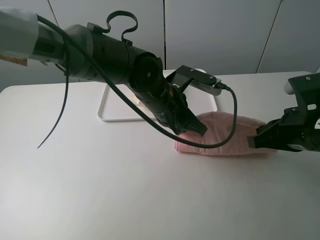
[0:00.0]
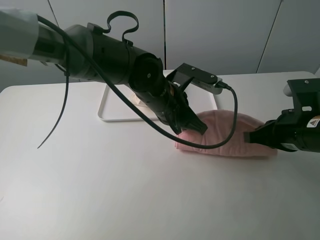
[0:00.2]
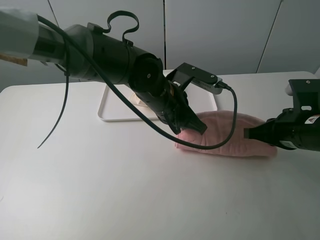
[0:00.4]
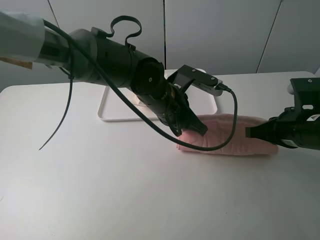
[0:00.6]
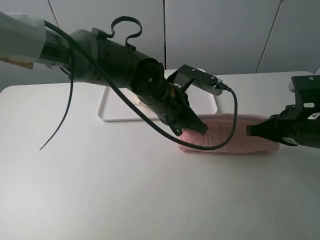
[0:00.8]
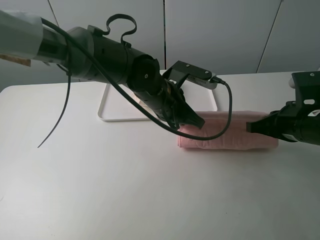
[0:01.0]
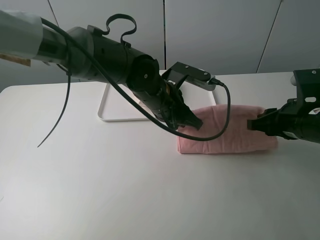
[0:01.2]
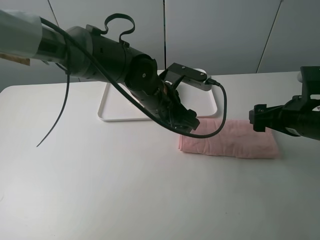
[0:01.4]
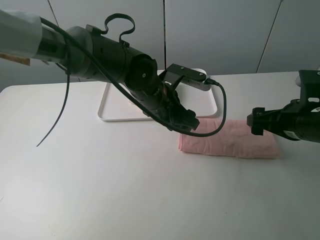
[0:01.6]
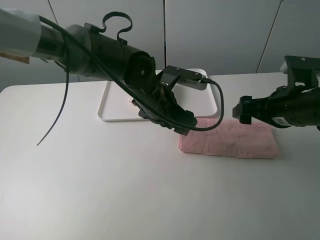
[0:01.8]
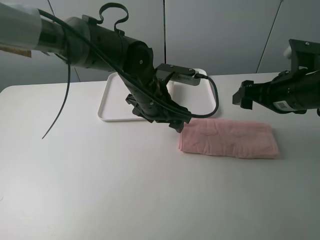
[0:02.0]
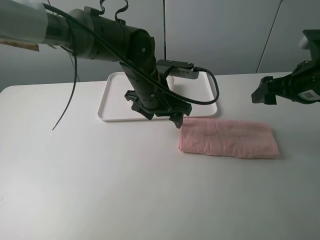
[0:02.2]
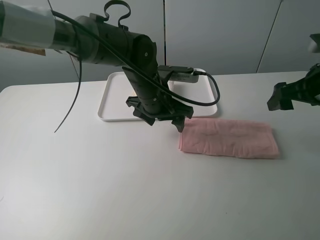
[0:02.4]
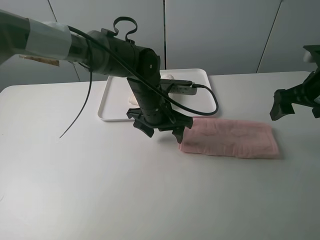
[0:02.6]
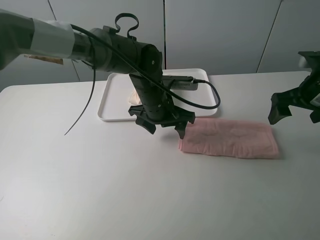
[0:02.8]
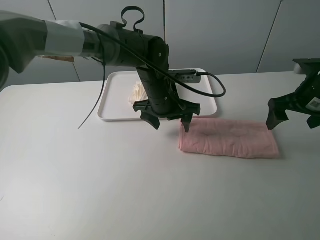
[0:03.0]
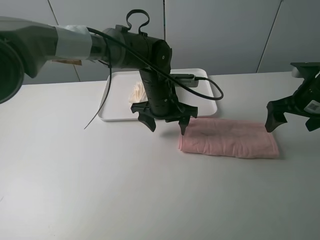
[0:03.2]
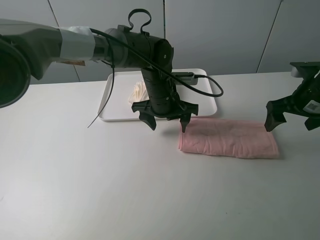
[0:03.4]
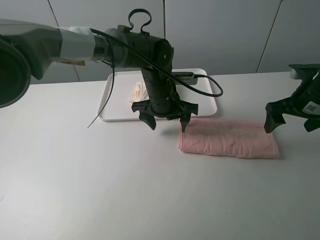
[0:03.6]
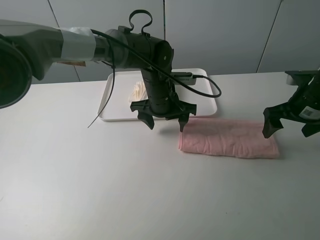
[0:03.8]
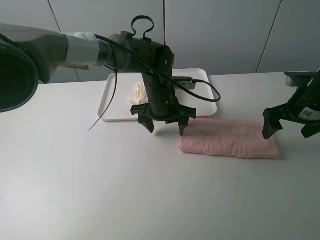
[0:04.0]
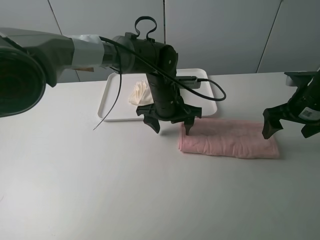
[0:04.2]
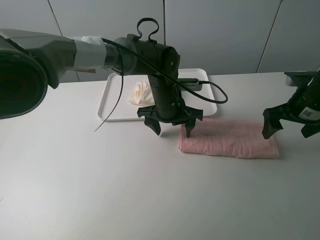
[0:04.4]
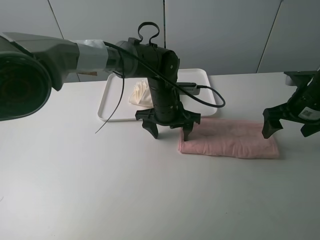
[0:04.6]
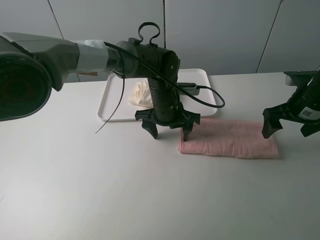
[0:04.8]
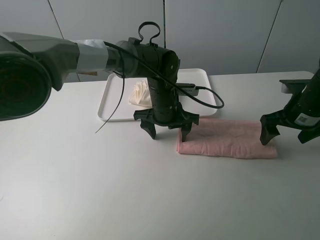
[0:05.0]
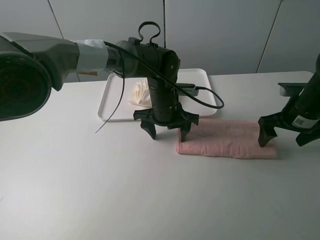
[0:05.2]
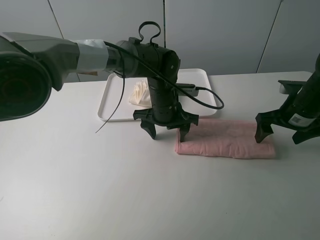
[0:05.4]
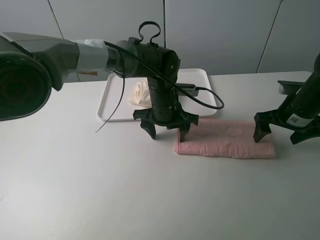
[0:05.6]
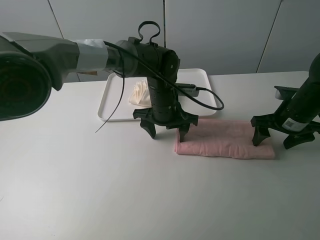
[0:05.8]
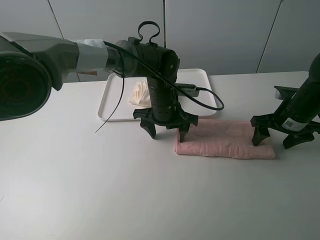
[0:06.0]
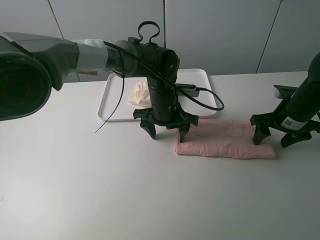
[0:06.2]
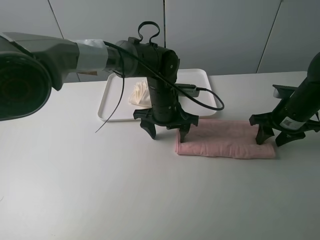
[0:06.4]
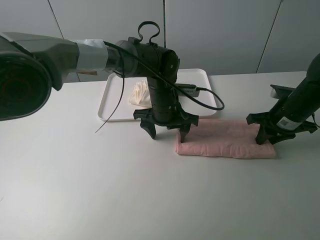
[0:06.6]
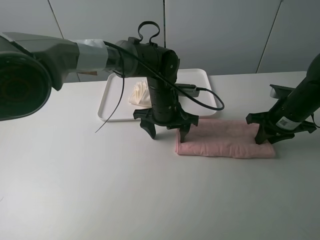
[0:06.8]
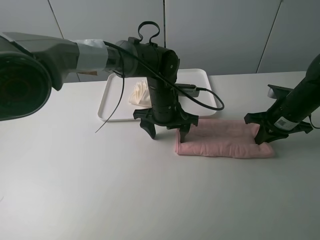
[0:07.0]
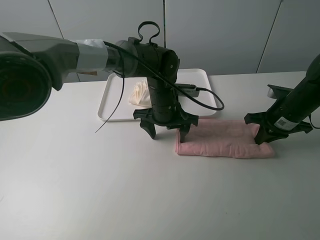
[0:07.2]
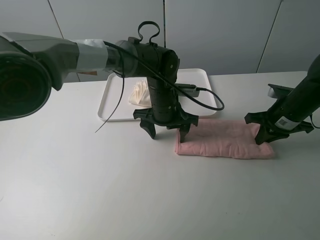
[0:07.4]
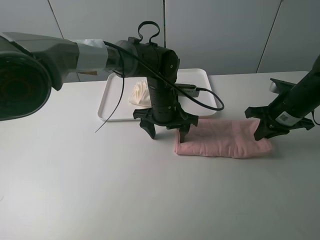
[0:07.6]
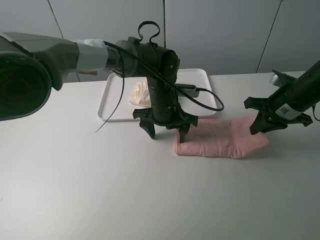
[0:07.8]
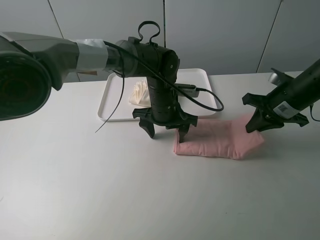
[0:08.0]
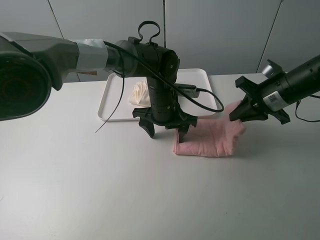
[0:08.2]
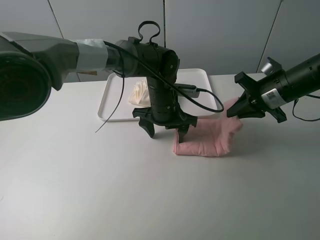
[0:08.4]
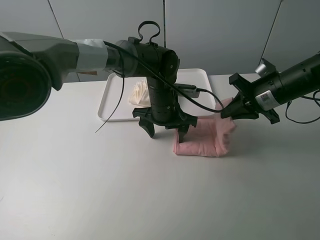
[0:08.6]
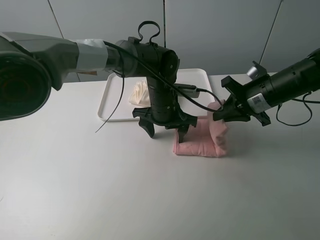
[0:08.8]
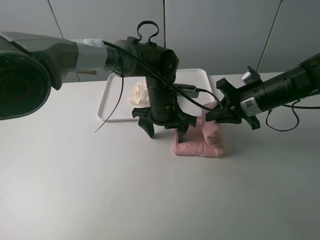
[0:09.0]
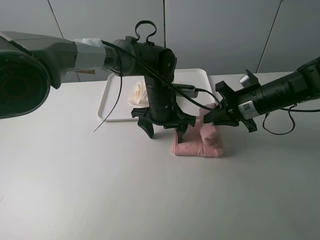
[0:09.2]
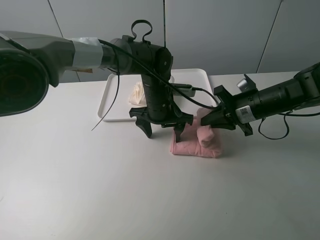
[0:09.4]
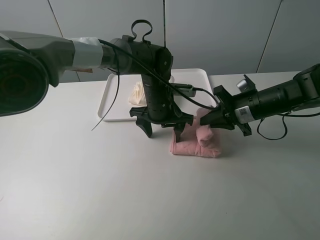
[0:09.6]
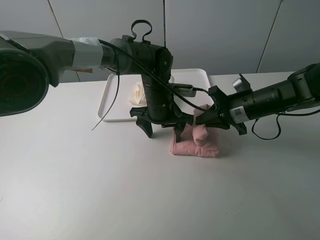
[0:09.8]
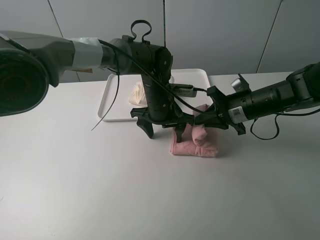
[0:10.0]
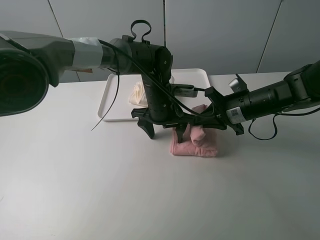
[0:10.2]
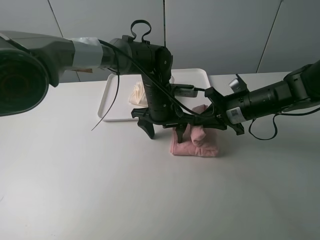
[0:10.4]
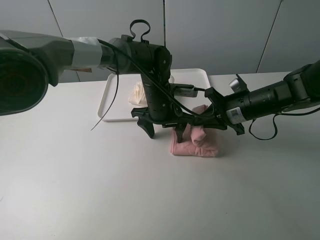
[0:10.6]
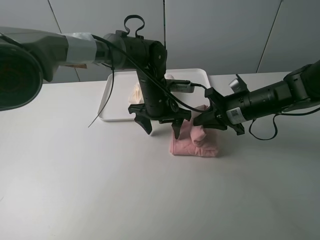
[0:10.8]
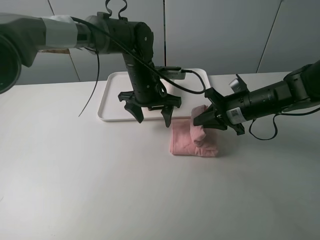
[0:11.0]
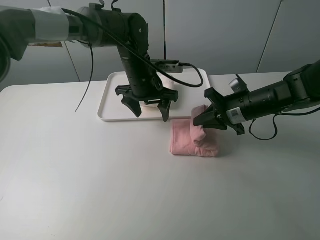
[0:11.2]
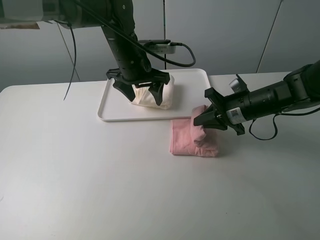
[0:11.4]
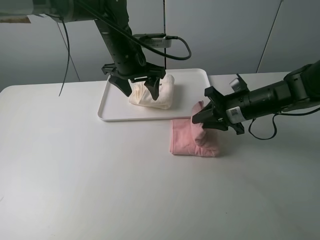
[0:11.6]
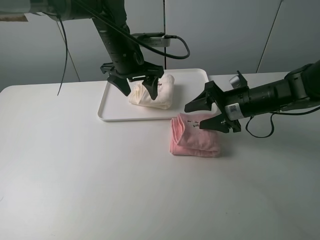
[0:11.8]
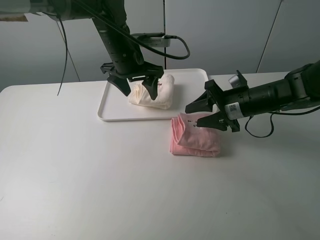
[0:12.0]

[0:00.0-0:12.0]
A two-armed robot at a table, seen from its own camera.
Task of the whole recording: fold one of the towels by two grippers and place it on the tray,then fold another towel by two grippers and place it on the folded towel.
Step, 0:01.8 to 0:04.4: Press the pink towel with the left gripper.
Step, 0:04.6 to 0:06.8: Grasp the pink towel with the right gripper.
Step, 0:07.0 to 0:12.0: Fold the pink towel from right to left with right gripper.
0:00.0 to 0:01.6: The left gripper opens up. The right gripper opens its fingers.
0:01.6 to 0:03.0: The right gripper heads forward and to the right, covering roughly 10 cm.
0:03.0 to 0:04.4: The grippers stay close to where they were, moving slightly.
0:04.4 to 0:06.0: There are only small adjustments of the grippers.
0:06.0 to 0:07.6: The right gripper closes its fingers.
0:07.6 to 0:09.0: The right gripper shifts approximately 5 cm to the left.
0:09.0 to 0:10.4: The grippers make only small movements.
0:10.4 to 0:12.0: The left gripper is displaced upward and to the left by approximately 15 cm; the right gripper opens.

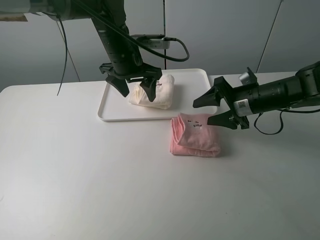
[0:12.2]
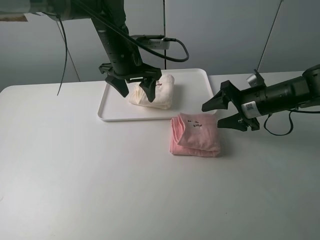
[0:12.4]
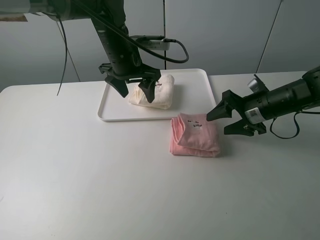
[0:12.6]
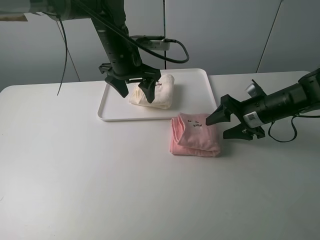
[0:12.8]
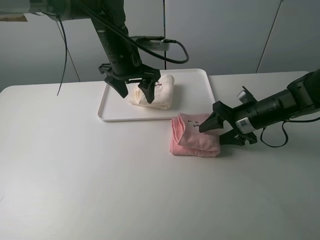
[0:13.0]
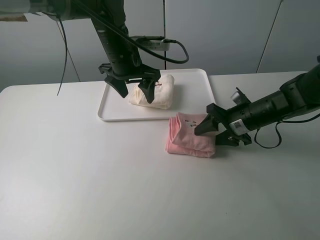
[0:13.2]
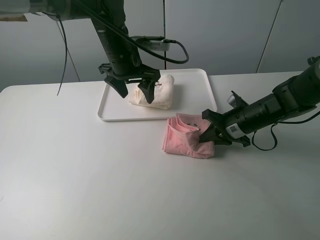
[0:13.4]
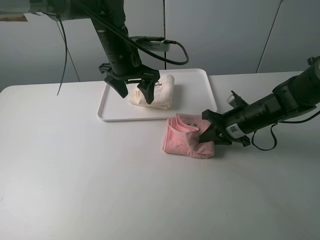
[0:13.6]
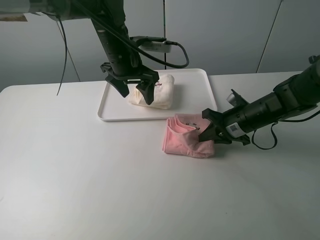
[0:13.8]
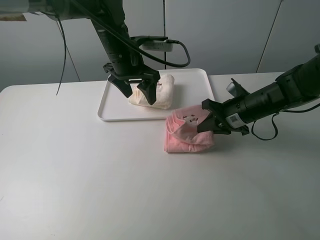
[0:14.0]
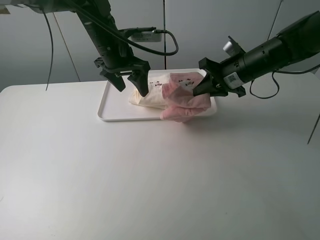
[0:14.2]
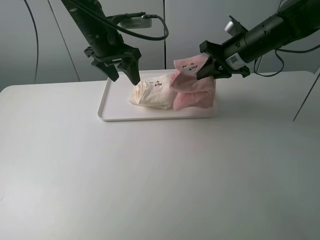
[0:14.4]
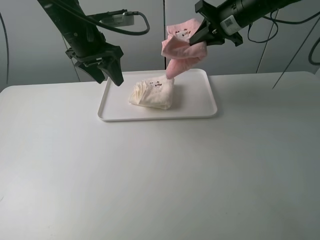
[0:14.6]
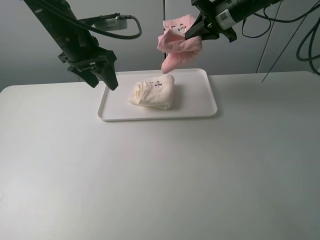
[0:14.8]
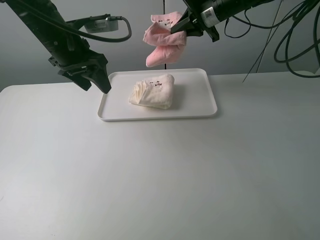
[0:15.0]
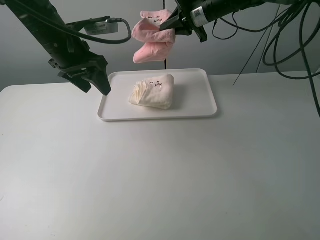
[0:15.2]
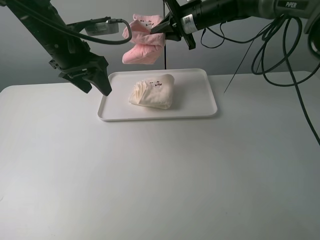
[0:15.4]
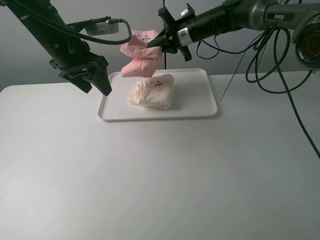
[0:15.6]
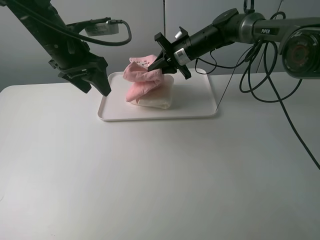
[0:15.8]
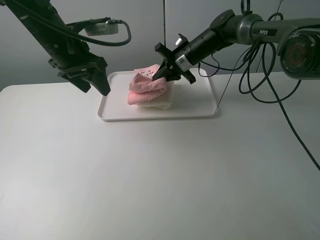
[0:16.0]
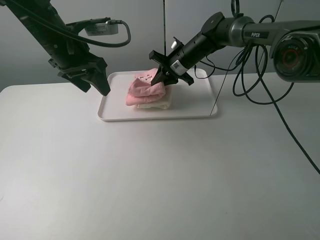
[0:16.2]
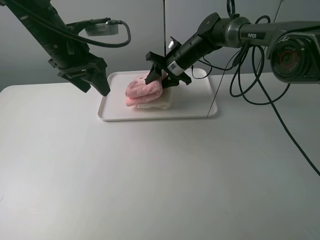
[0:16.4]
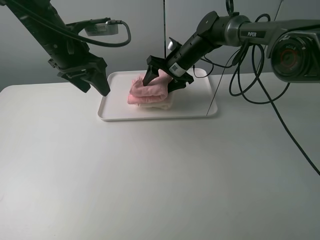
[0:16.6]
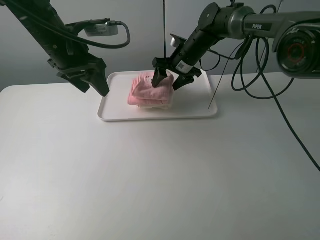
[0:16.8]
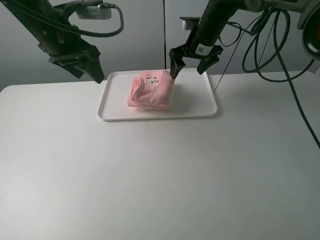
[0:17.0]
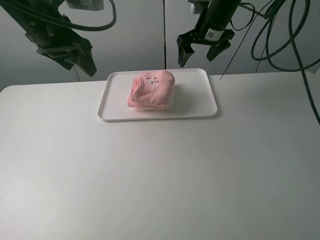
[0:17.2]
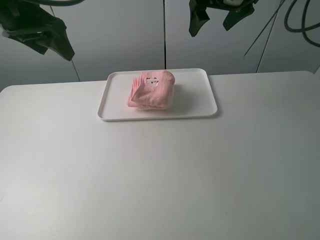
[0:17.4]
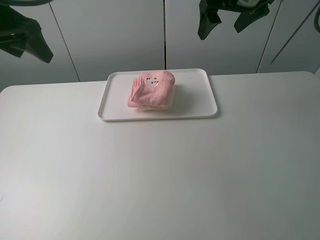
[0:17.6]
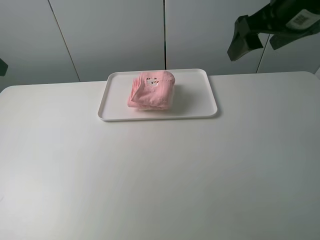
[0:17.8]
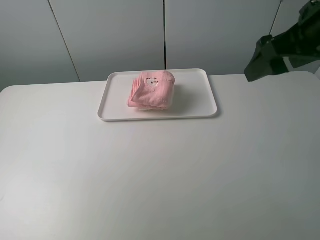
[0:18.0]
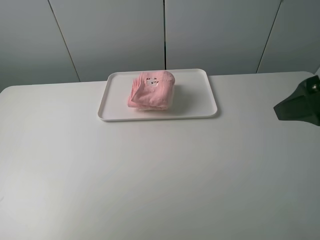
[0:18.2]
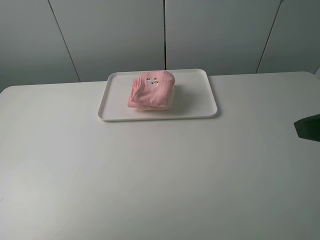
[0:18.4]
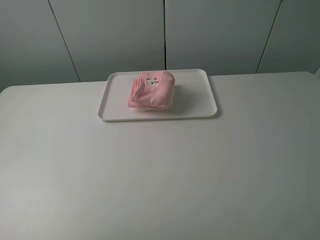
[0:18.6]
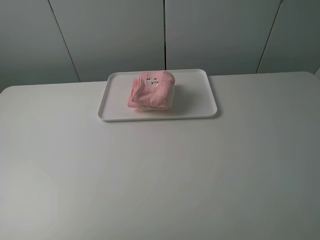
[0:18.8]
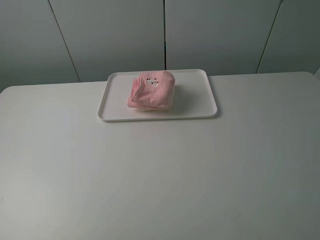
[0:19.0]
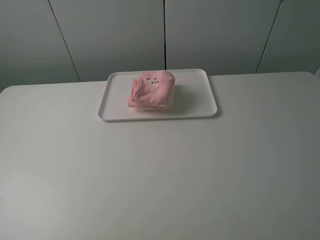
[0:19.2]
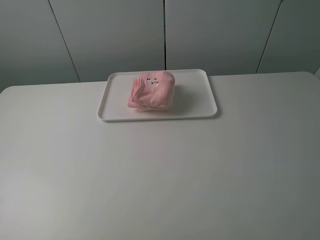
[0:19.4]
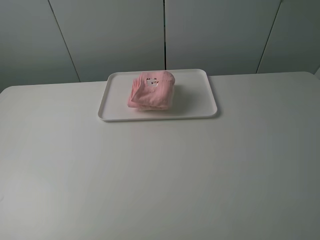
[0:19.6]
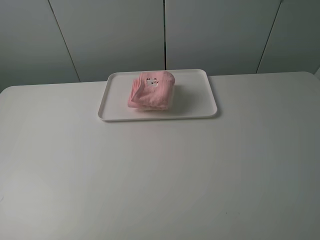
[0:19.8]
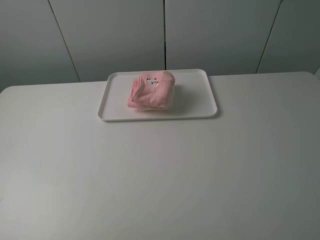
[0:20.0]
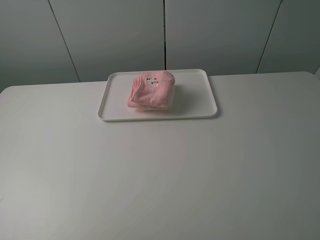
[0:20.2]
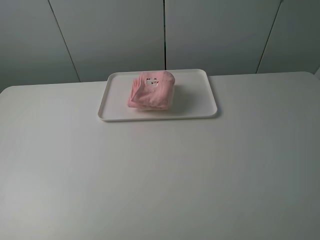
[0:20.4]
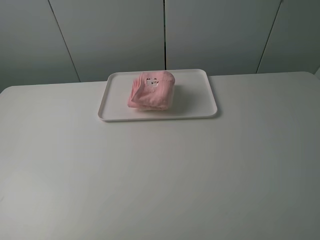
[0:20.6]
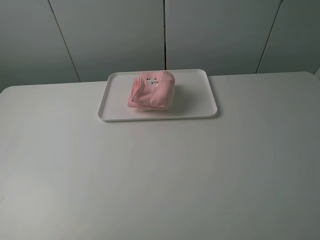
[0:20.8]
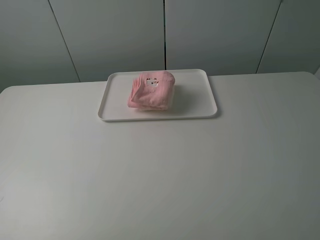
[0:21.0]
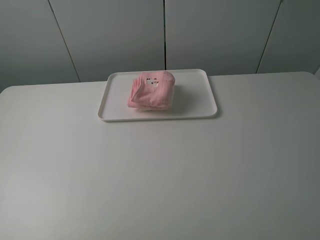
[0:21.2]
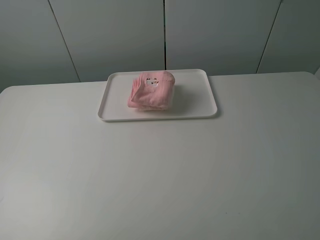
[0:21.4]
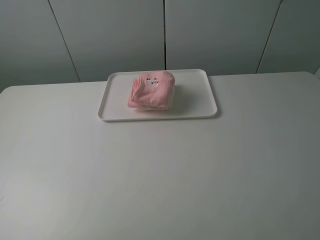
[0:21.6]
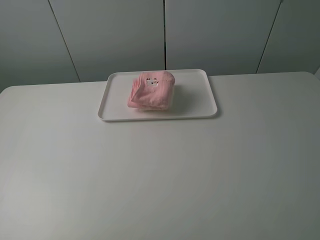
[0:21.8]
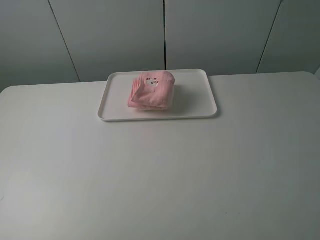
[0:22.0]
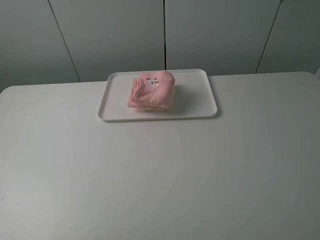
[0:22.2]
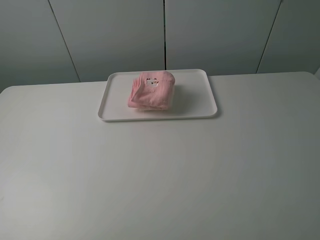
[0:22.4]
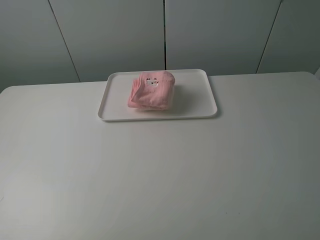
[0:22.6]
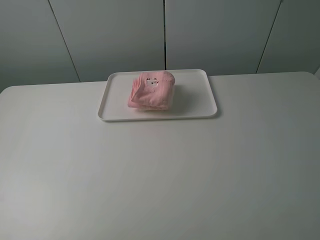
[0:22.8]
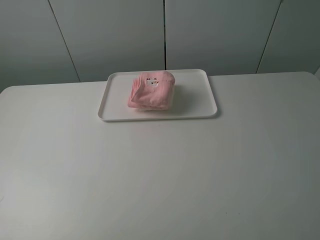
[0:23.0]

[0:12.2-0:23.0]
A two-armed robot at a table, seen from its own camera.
Task of the whole recording: fold one of the towels by two grippers and place it on the tray,then fold another towel by two grippers and place it on the folded towel.
Step, 0:12.2 to 0:13.4: Grasp the pink towel with the right gripper.
Step, 0:13.6 to 0:16.6: Place the pink towel on the white towel with the right gripper.
0:12.2 to 0:13.8: The right gripper closes its fingers.
0:13.8 to 0:15.2: The right gripper heads forward, upward and to the left, covering roughly 25 cm; the left gripper is displaced to the left by approximately 10 cm.
0:15.2 to 0:16.8: The right gripper moves downward, approximately 10 cm, and opens its fingers.
0:16.8 to 0:18.4: The right gripper travels backward and to the right by about 40 cm. The left gripper moves backward and to the left, approximately 30 cm.
0:18.4 to 0:20.0: The right gripper is displaced backward by about 10 cm.
0:21.4 to 0:23.0: The two grippers keep their place.
